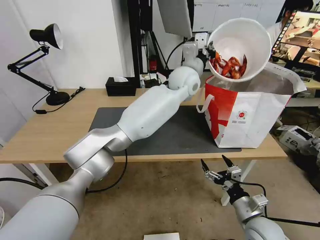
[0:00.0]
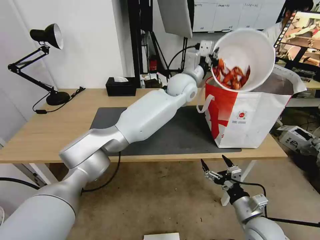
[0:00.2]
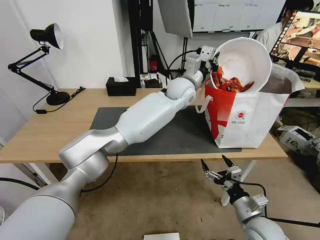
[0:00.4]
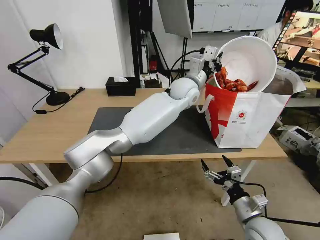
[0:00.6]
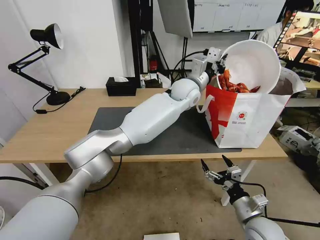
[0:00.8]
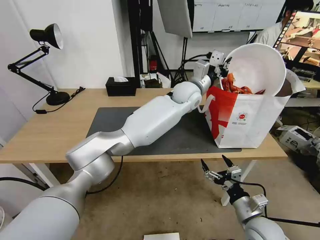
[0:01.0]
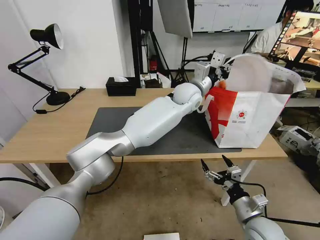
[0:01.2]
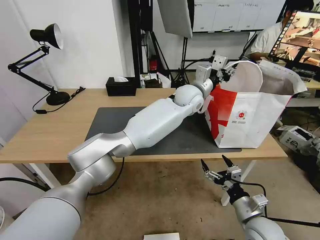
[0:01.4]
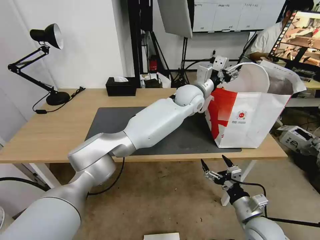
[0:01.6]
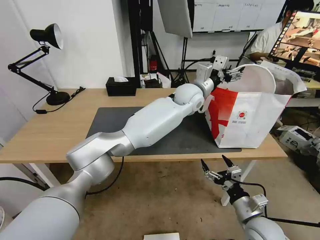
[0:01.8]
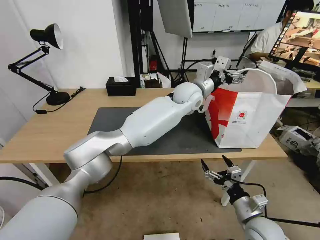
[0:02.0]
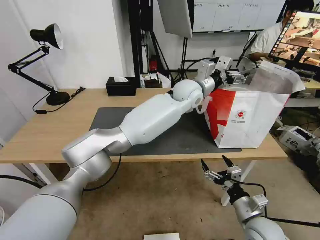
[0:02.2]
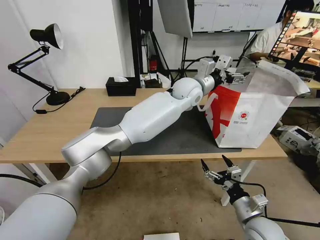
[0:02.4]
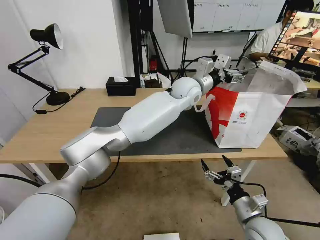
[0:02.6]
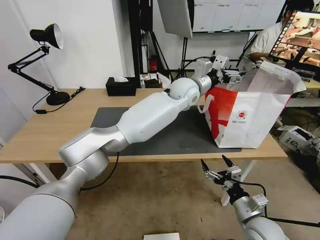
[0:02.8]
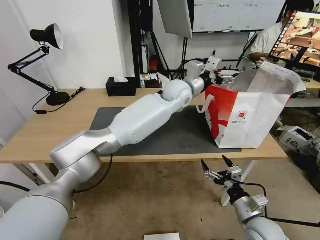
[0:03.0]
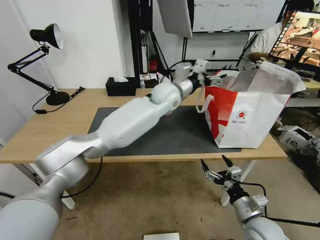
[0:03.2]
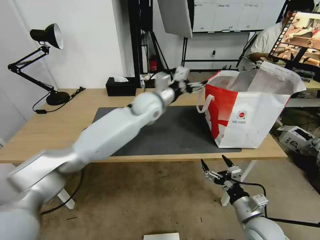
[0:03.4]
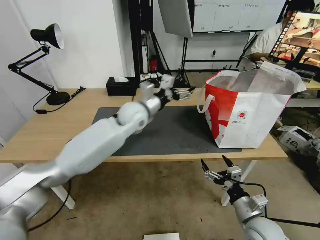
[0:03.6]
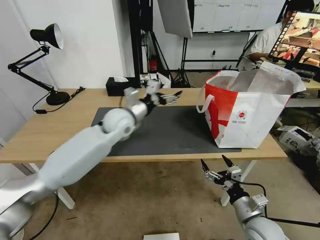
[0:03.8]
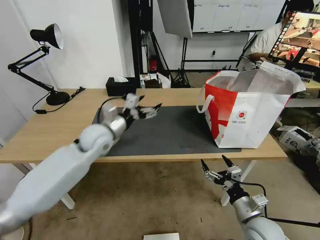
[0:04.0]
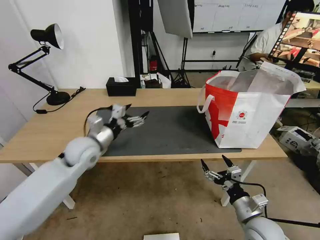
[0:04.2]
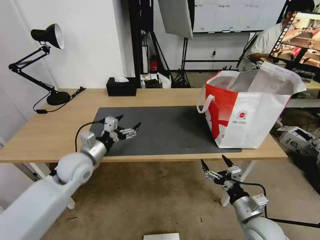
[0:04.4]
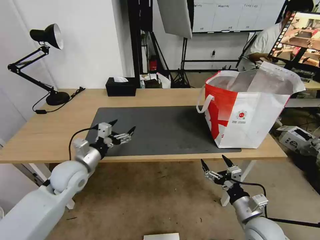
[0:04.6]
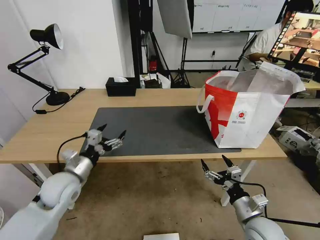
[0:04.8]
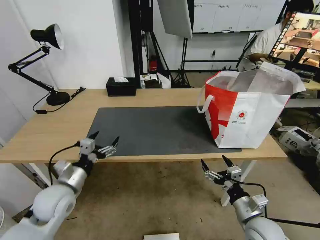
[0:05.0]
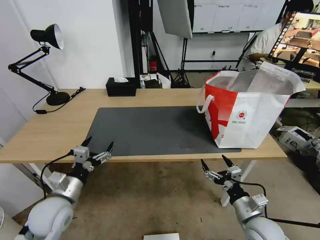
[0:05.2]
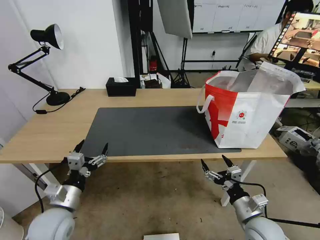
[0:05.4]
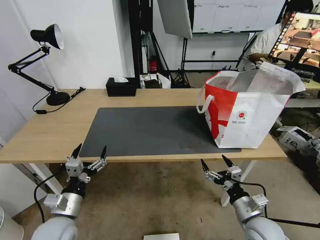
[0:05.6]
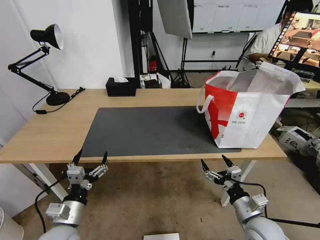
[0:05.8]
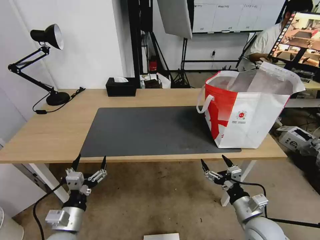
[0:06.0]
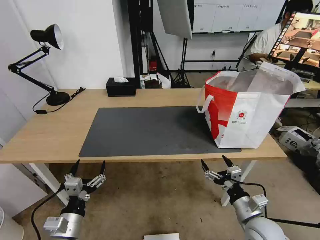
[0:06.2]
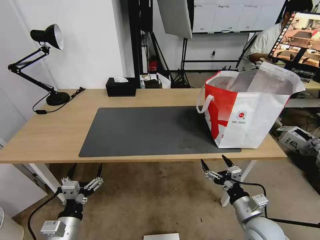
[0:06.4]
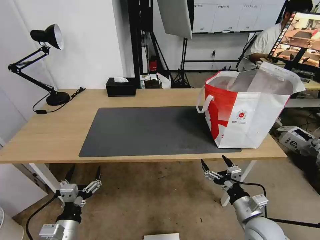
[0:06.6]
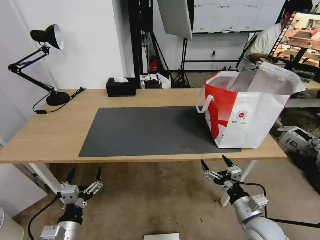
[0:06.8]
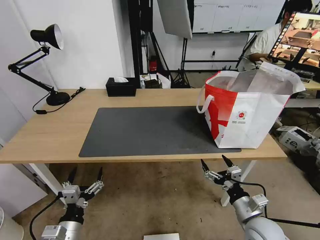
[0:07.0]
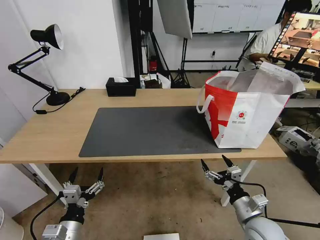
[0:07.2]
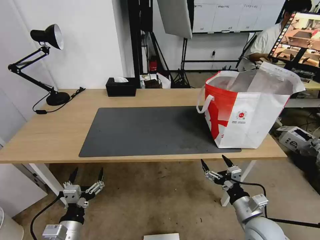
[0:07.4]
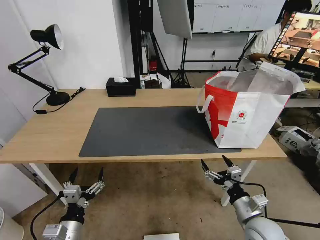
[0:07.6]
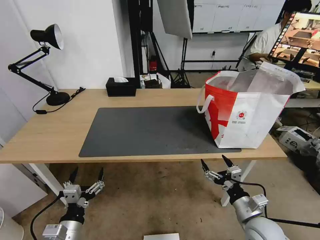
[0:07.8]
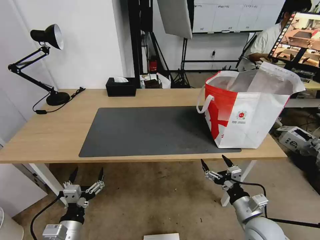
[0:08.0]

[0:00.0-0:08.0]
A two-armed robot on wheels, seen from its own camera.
Task of the whole recording: Pick up the trash from the table and place it into the takeout bag.
0:00.0 to 0:01.6: The left gripper goes approximately 5 cm downward, and opens.
0:01.6 to 0:03.2: The left gripper moves to the left, some 10 cm.
0:03.2 to 0:04.8: The left gripper travels to the left, backward and downward by some 40 cm.
0:04.8 to 0:06.4: The left gripper travels backward and downward by roughly 20 cm.
0:06.4 to 0:08.0: The two grippers keep their place.

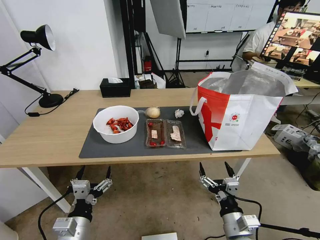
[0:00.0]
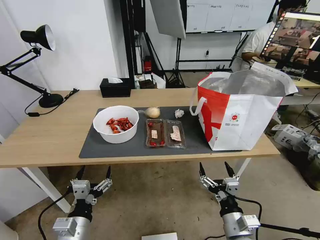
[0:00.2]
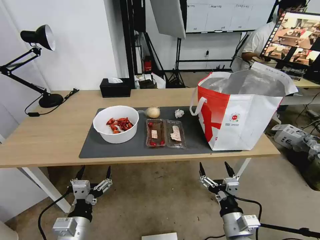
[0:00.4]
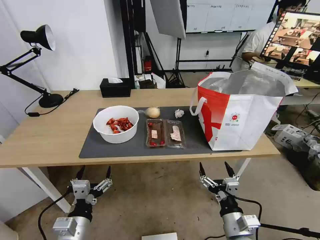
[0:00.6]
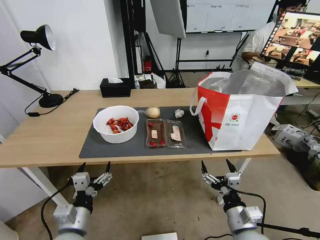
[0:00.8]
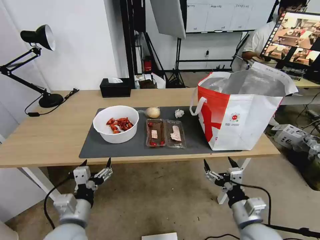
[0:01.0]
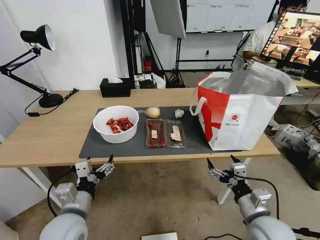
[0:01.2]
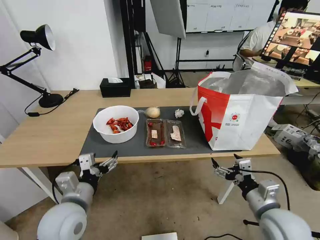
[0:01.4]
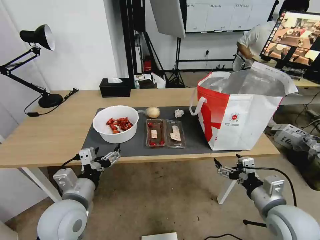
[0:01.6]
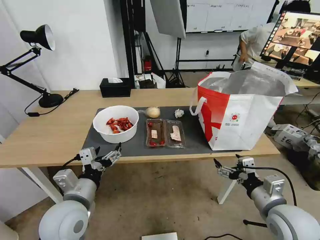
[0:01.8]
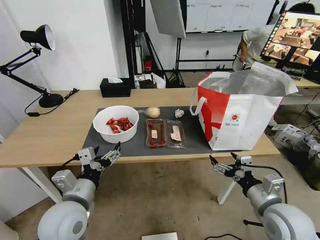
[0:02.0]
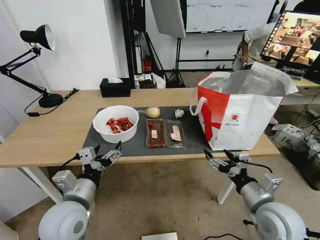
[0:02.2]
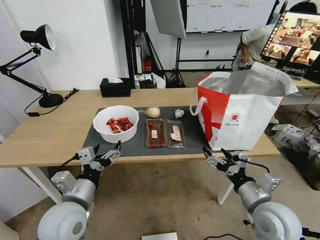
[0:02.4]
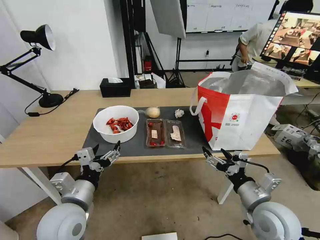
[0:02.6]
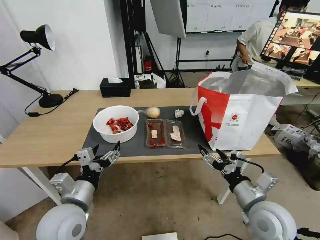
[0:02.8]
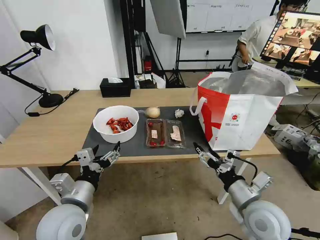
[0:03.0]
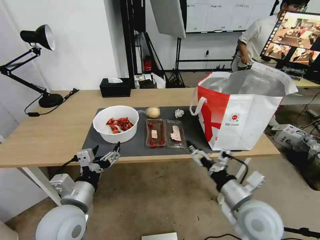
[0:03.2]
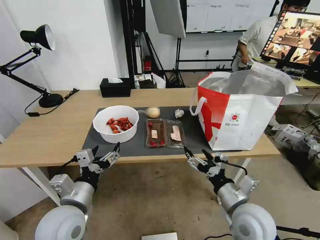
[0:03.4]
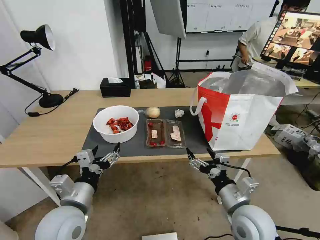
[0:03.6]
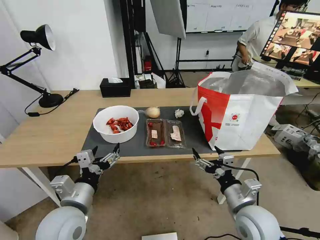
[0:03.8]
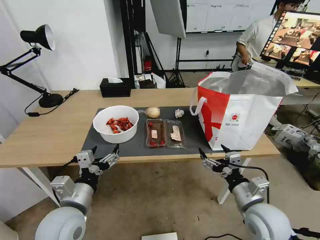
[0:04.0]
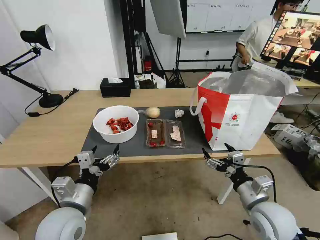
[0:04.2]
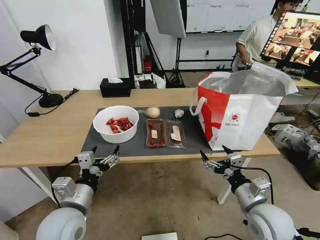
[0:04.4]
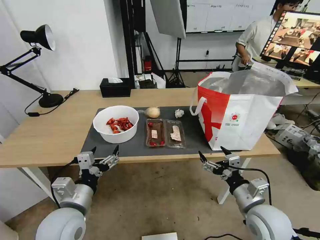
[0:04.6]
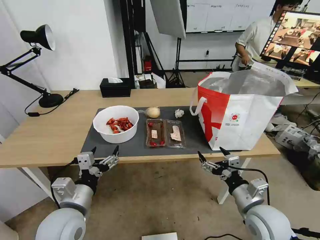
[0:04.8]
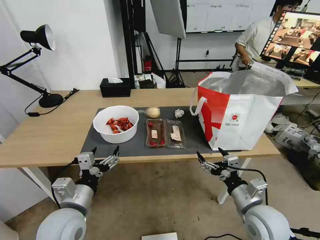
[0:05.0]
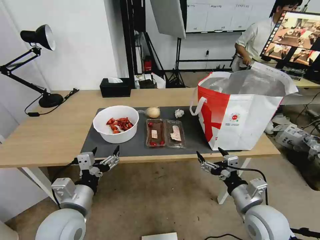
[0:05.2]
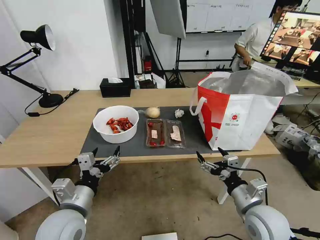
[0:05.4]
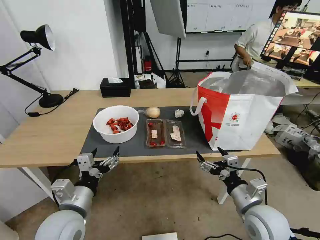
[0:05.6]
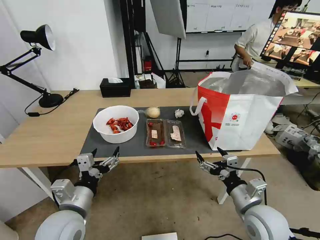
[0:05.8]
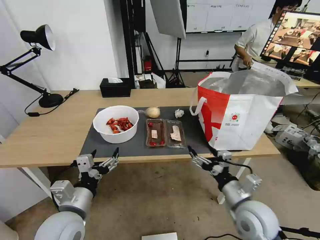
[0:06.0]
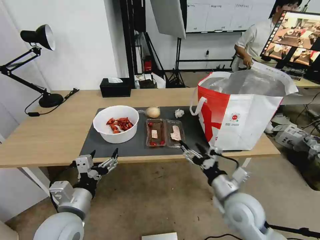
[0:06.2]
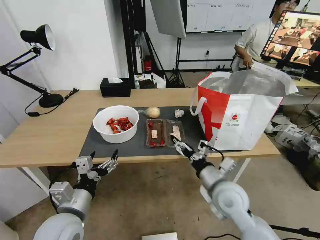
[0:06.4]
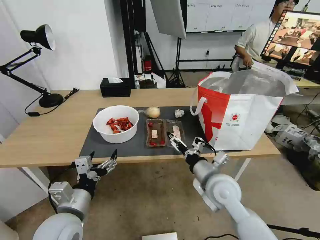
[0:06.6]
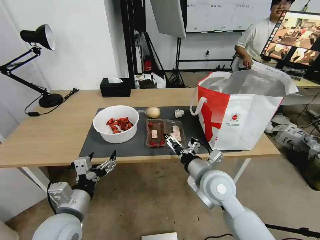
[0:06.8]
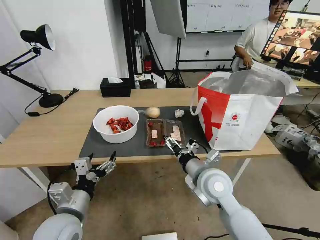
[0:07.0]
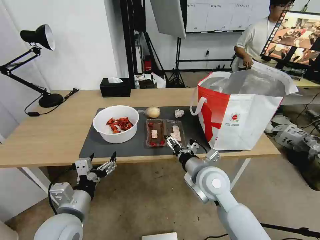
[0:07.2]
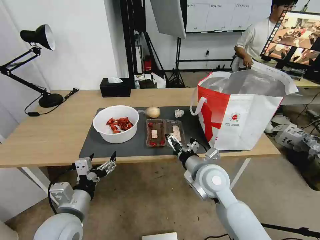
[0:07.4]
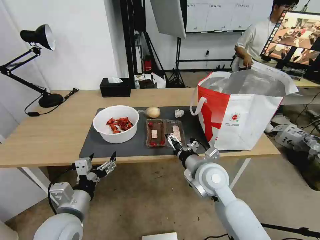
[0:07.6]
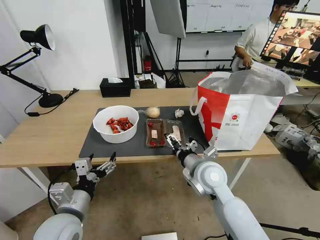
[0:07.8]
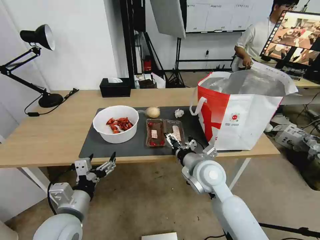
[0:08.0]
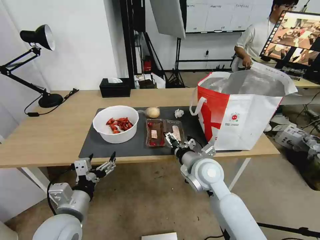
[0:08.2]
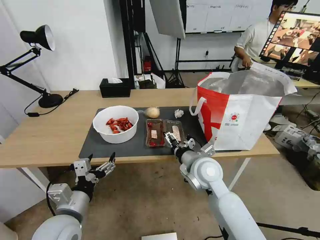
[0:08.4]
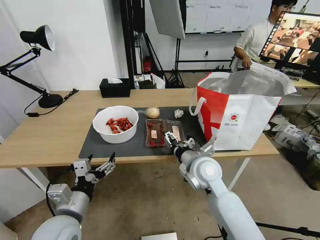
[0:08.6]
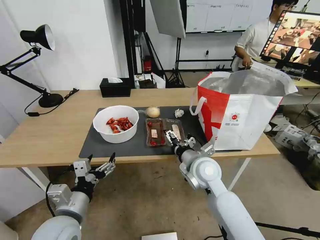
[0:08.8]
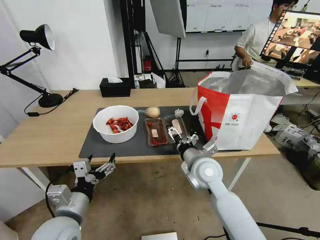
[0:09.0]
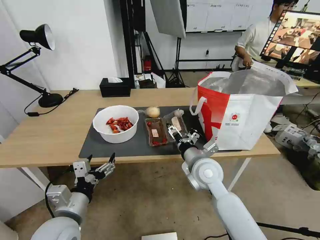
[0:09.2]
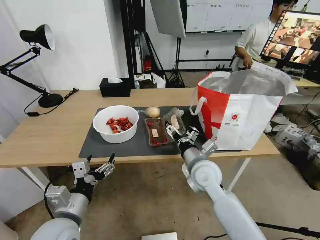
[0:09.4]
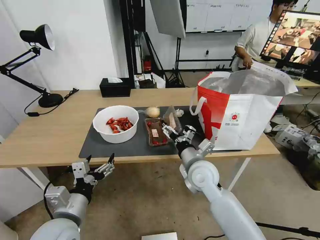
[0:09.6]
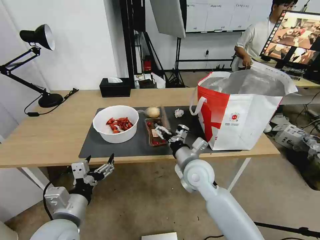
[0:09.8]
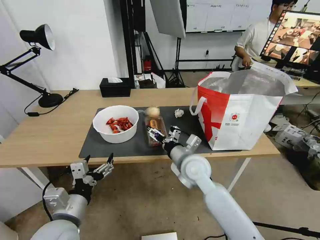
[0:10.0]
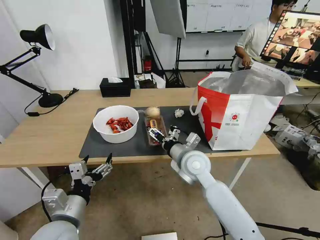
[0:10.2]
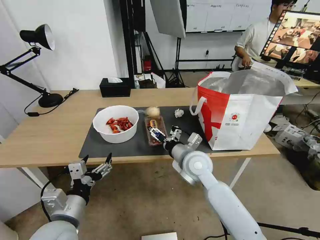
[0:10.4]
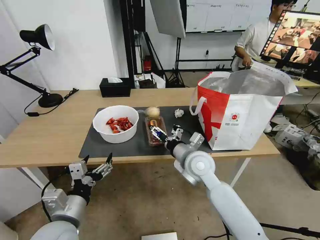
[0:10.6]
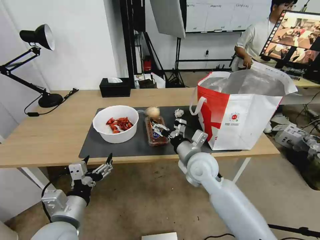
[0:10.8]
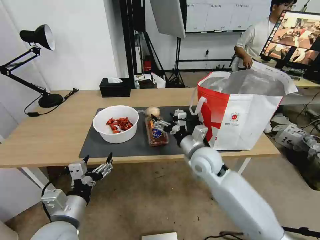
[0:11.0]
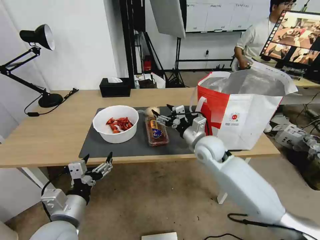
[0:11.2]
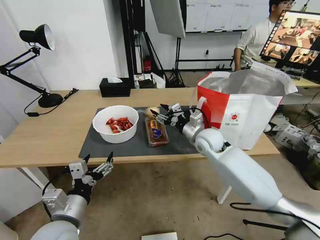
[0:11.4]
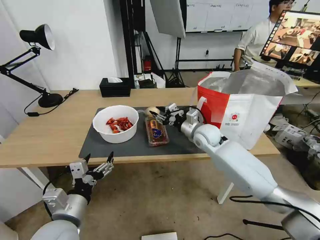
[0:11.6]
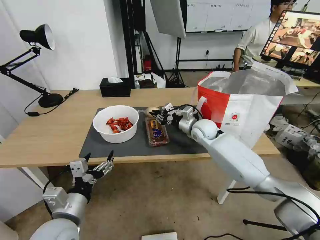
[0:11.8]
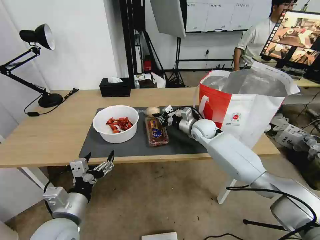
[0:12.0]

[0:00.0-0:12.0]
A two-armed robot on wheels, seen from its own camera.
Task of the whole recording: Pick up the trash from the table and place it into the takeout bag.
0:01.6 to 0:03.0: The right gripper moves to the left, about 5 cm.
0:04.4 to 0:06.0: The grippers make only small movements.
0:06.0 to 0:07.6: The right gripper heads to the left and forward, covering about 15 cm.
0:07.6 to 0:09.0: There are only small adjustments of the grippers.
0:10.4 to 0:12.0: The right gripper heads forward, covering some 20 cm, and closes up.

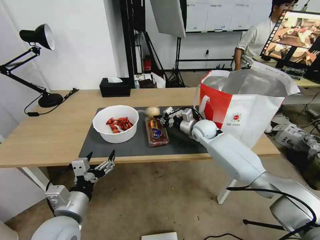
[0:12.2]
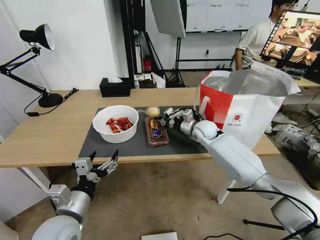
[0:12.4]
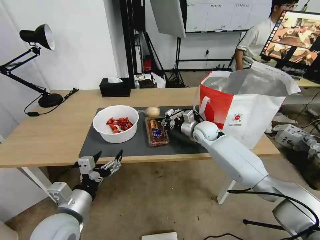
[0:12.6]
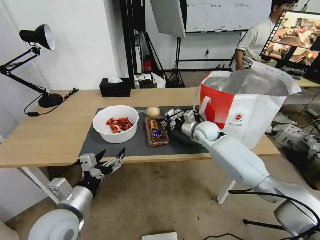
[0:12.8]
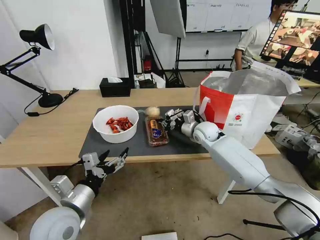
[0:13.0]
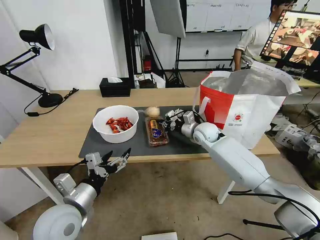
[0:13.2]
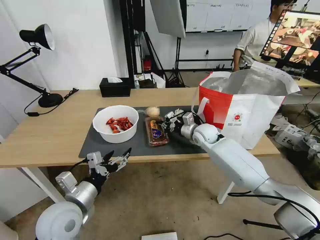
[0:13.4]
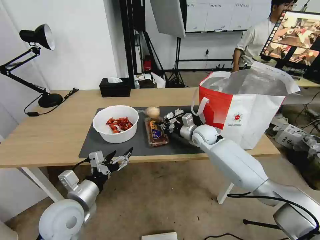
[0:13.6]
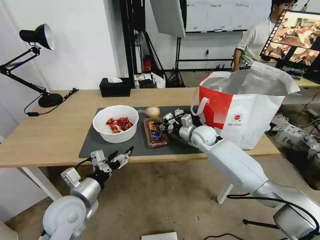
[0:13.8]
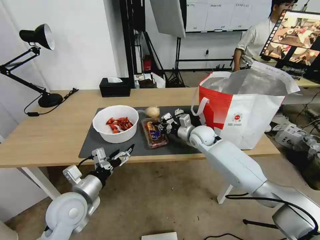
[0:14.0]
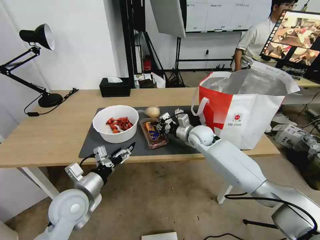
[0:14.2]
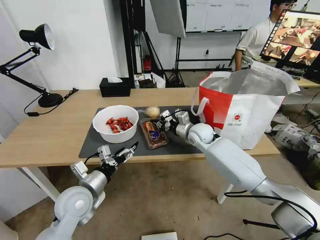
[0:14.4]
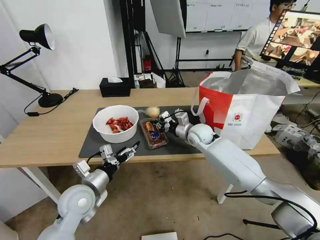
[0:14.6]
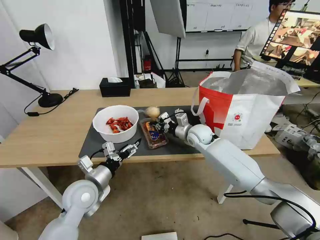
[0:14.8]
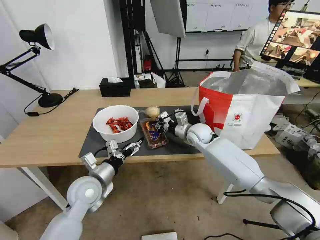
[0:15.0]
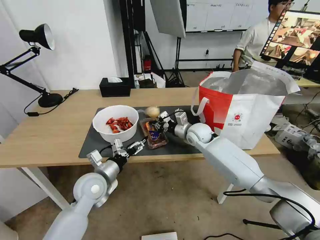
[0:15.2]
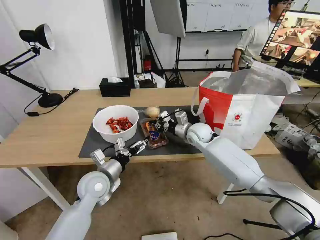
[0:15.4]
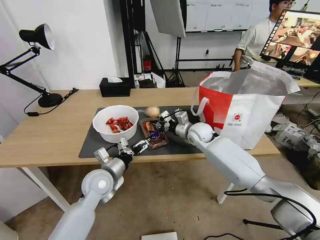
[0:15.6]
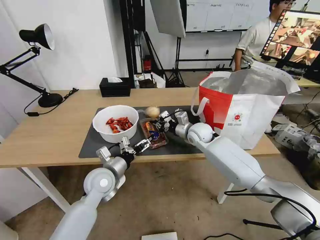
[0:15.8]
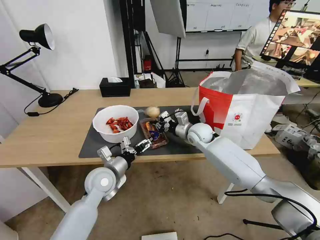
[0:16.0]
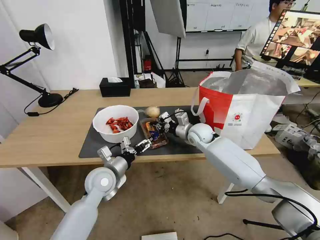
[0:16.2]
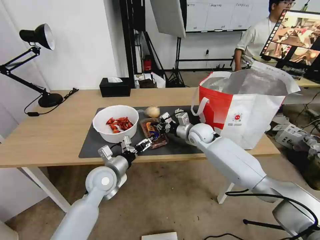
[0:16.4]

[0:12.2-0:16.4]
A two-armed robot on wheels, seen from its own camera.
Task of the whole recording: Pick up the trash from the table and place it into the takeout bag.
0:13.6 to 0:15.0: The left gripper travels forward by some 10 cm.
0:15.0 to 0:16.4: The left gripper ends up roughly 5 cm from where it was.
